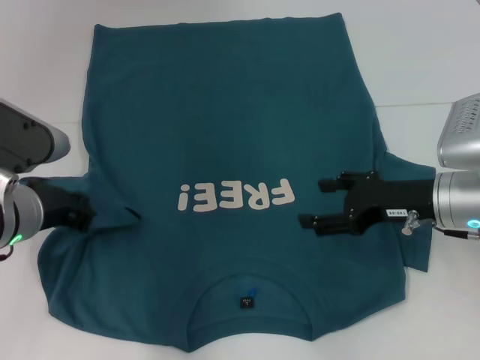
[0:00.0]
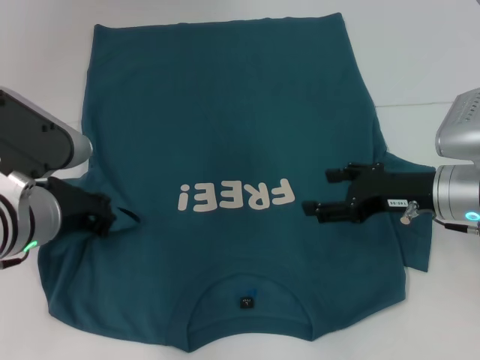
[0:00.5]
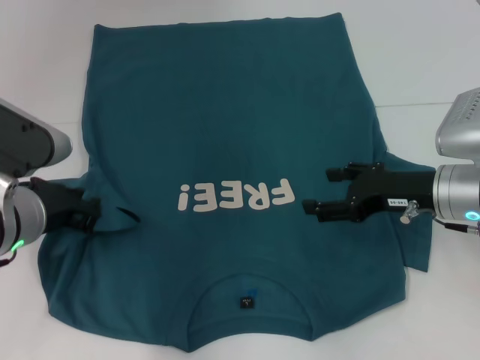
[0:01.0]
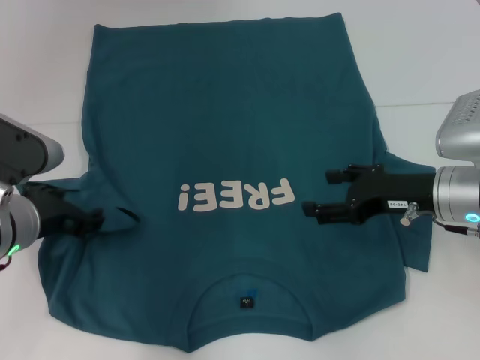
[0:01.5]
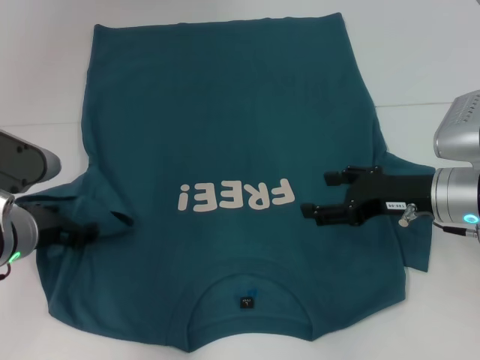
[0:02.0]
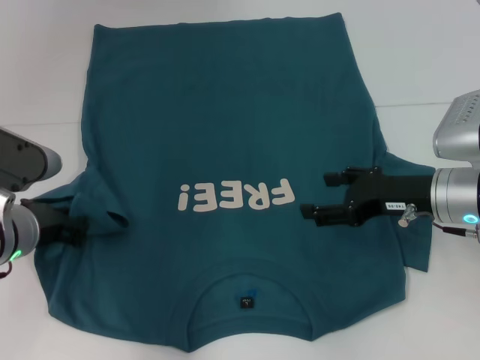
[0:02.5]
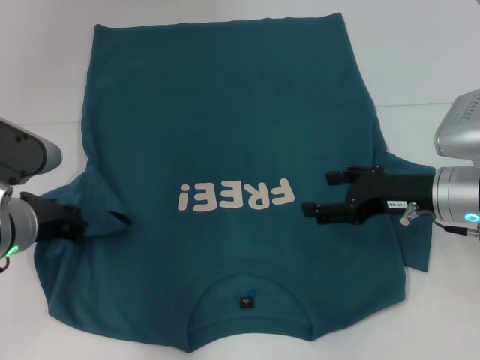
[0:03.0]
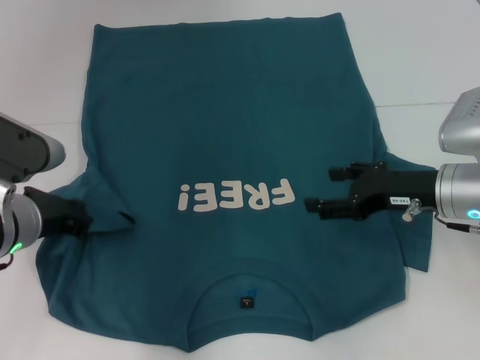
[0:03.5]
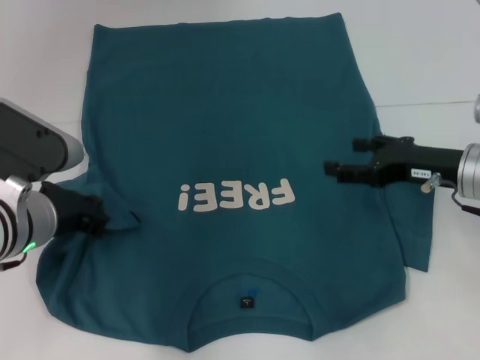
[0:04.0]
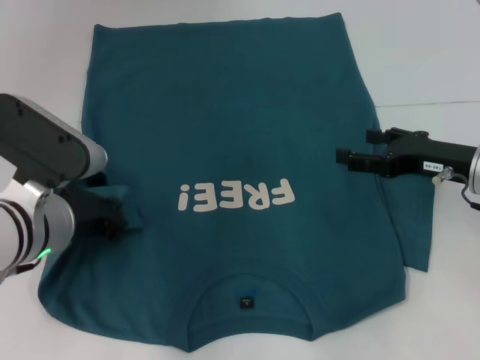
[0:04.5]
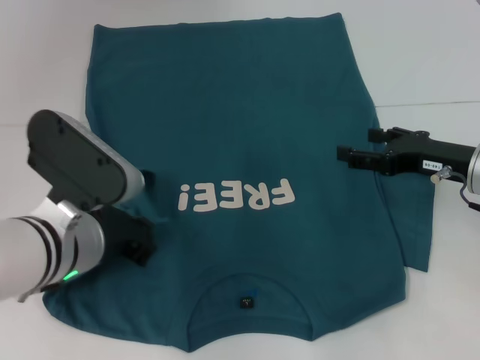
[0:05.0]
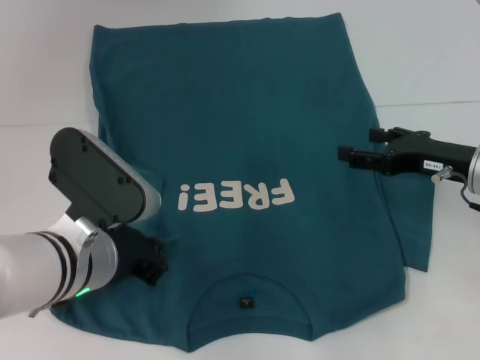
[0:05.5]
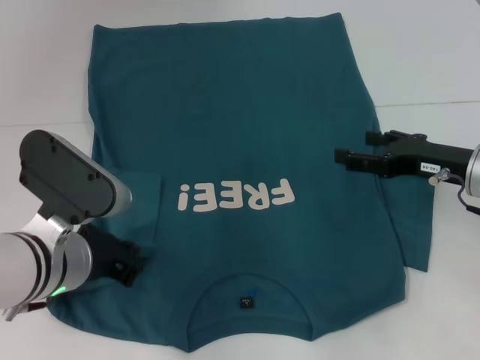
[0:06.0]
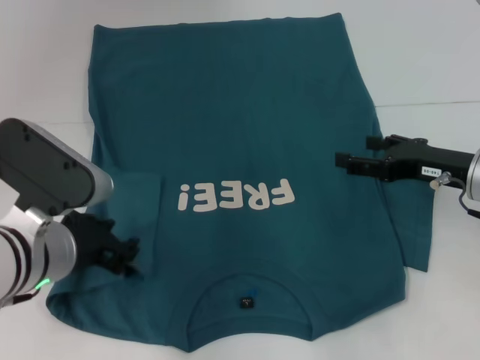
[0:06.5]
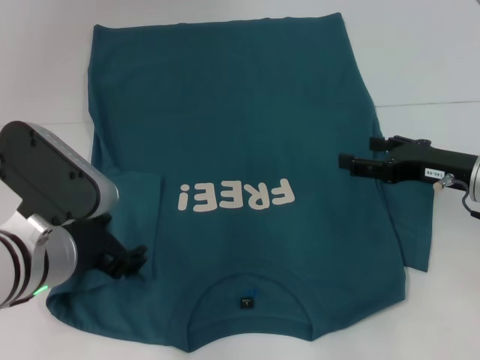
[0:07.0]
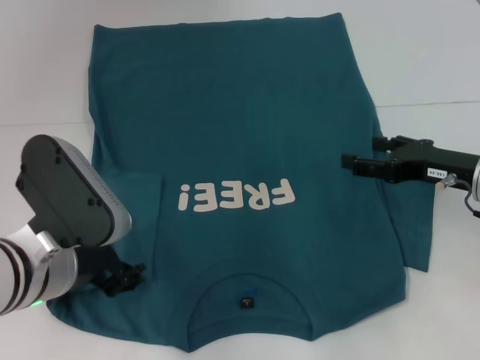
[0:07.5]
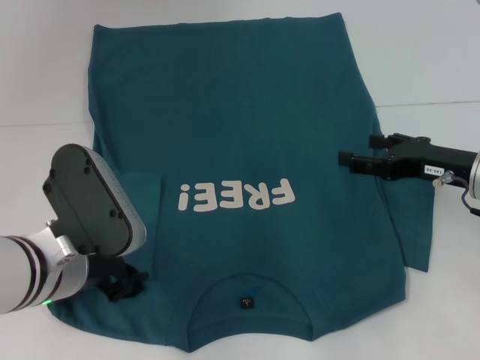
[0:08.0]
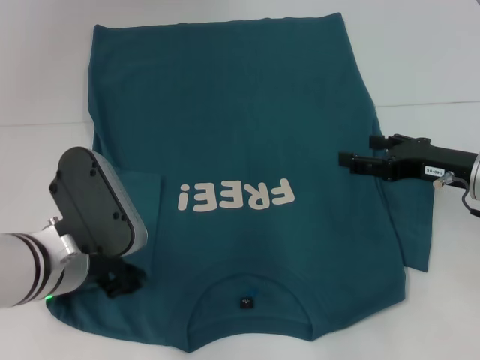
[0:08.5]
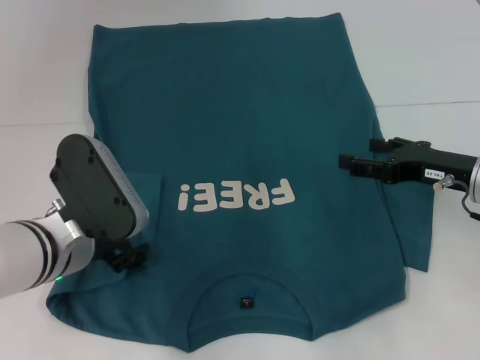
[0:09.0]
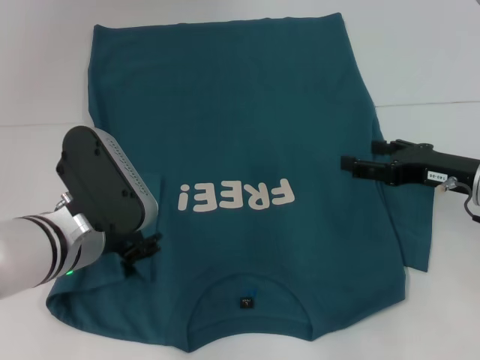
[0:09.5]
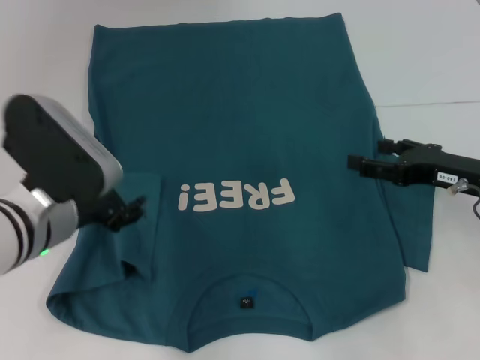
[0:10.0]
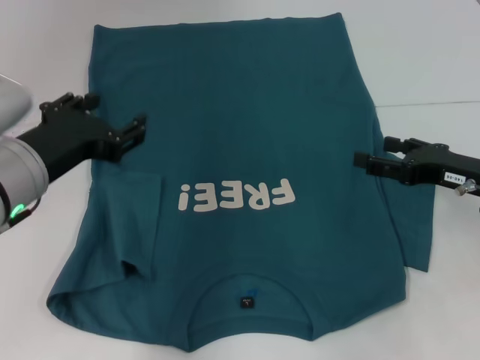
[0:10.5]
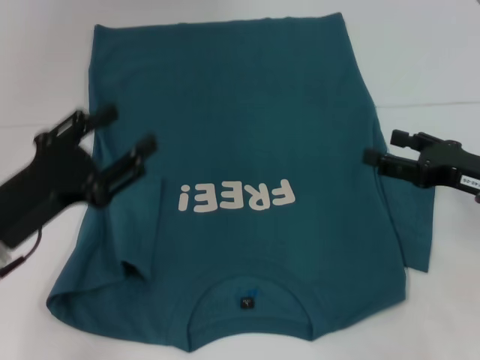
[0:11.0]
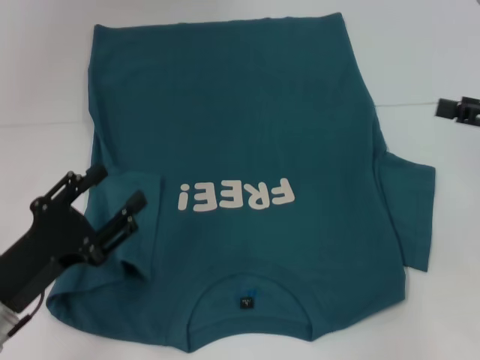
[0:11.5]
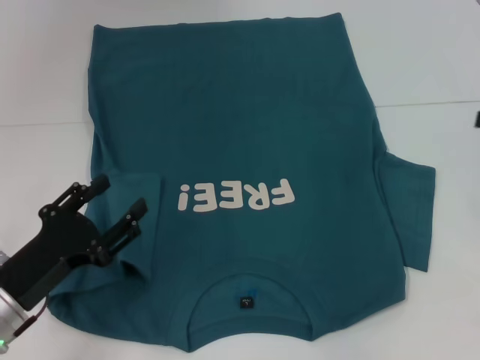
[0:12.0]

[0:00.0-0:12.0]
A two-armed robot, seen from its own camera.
0:00.0 to 0:02.0: The left gripper opens its fingers.
0:02.0 to 0:04.0: The left gripper closes its fingers.
0:06.0 to 0:08.0: The left gripper opens.
0:08.0 to 0:10.0: The grippers make only small movements.
0:10.0 to 0:12.0: The left gripper travels downward, to the left and backward by roughly 15 cm; the right gripper travels upward and to the right by some 15 cm.

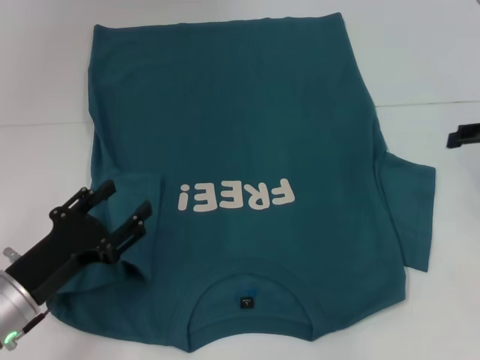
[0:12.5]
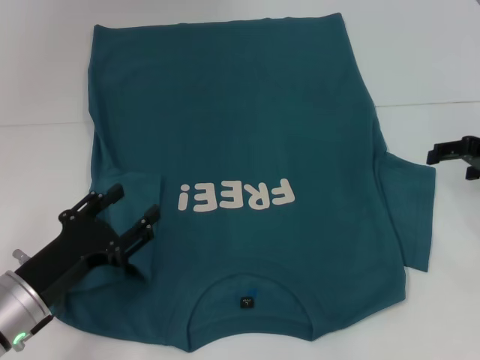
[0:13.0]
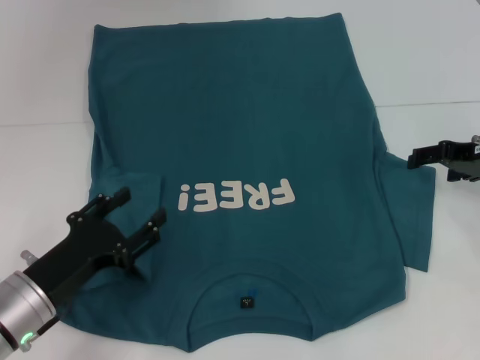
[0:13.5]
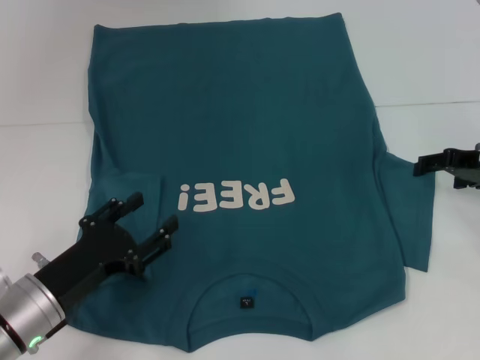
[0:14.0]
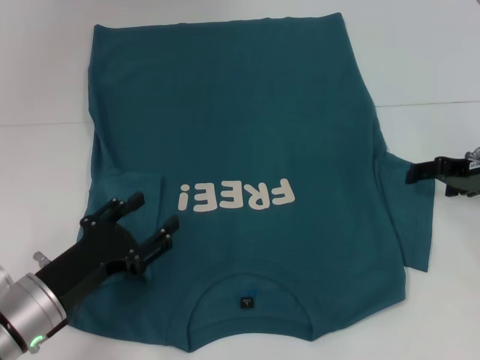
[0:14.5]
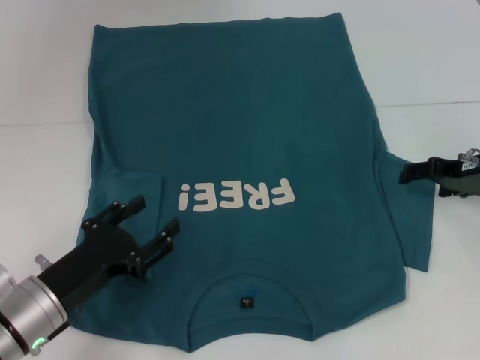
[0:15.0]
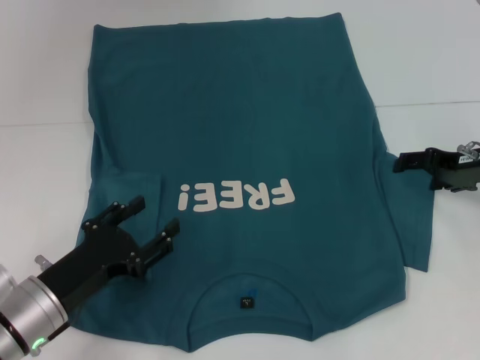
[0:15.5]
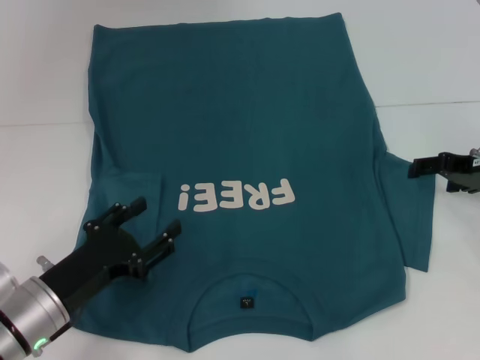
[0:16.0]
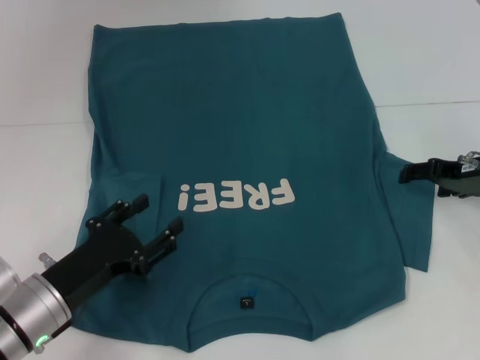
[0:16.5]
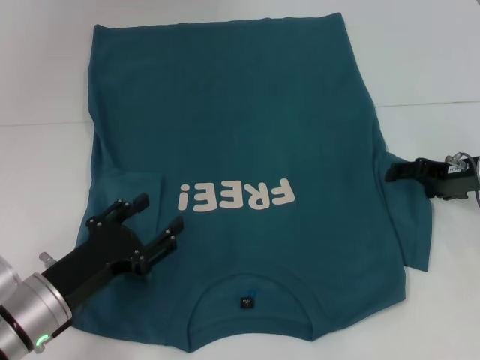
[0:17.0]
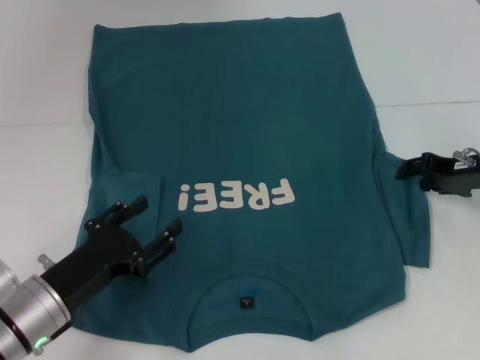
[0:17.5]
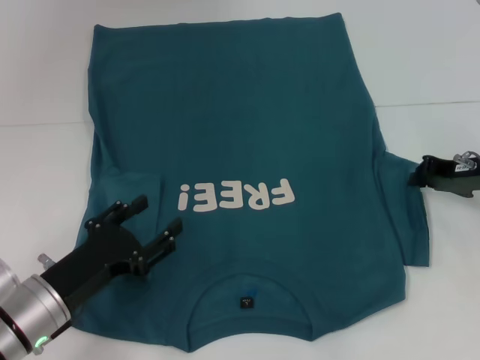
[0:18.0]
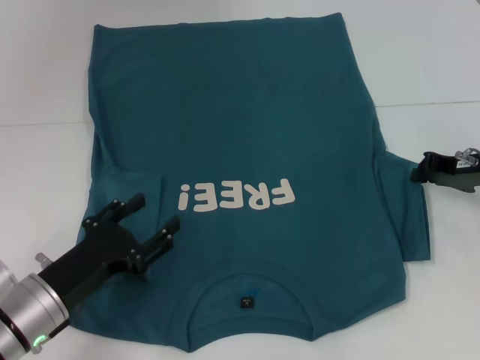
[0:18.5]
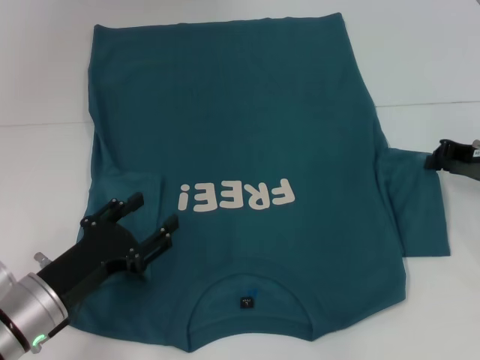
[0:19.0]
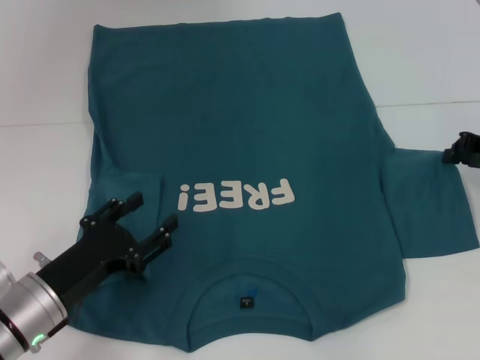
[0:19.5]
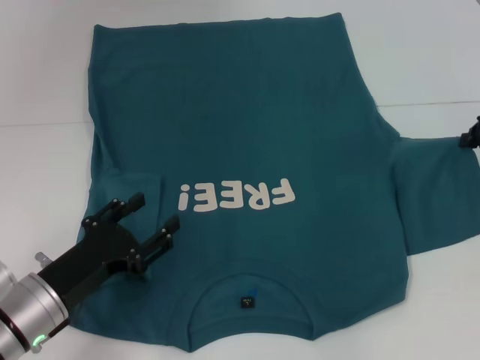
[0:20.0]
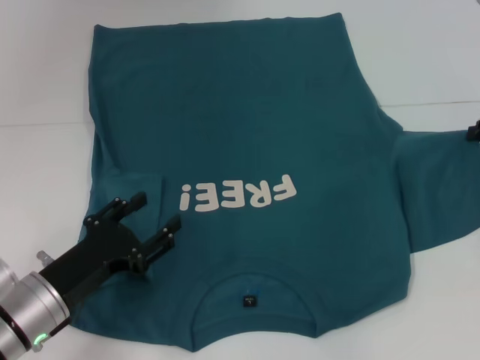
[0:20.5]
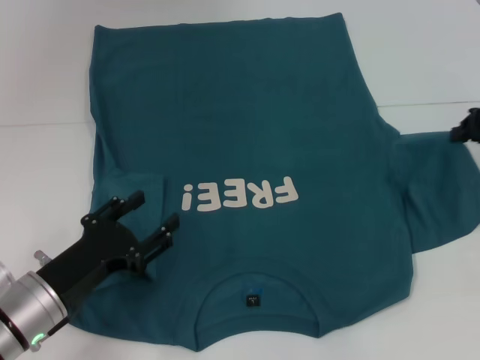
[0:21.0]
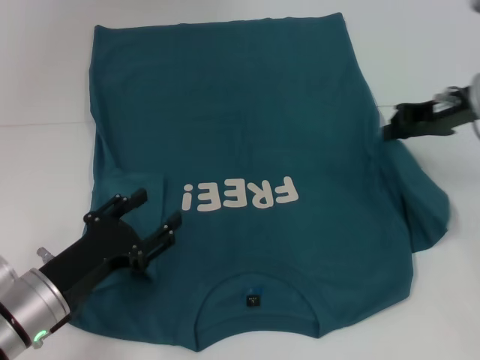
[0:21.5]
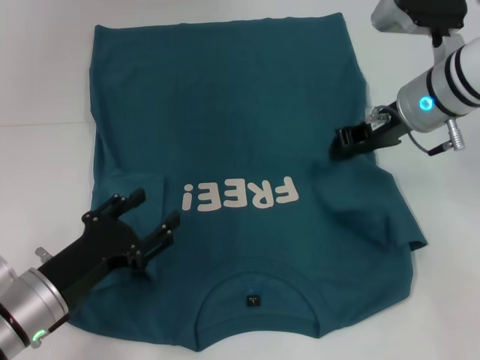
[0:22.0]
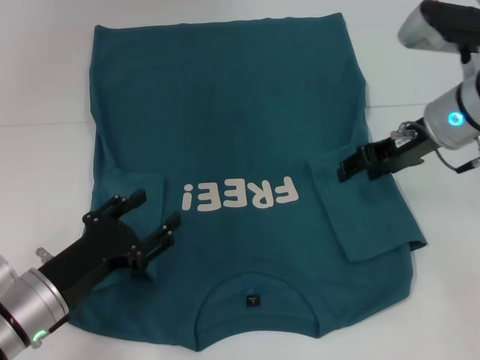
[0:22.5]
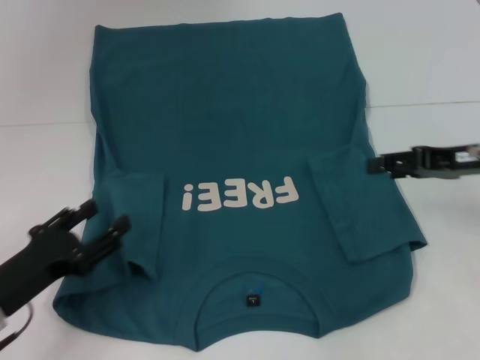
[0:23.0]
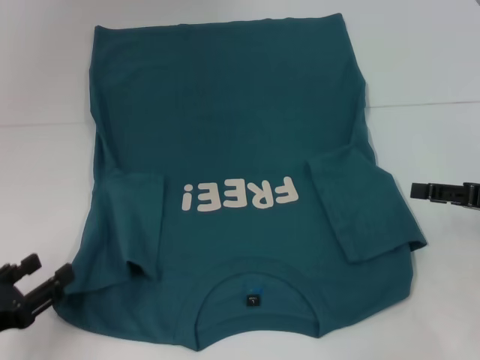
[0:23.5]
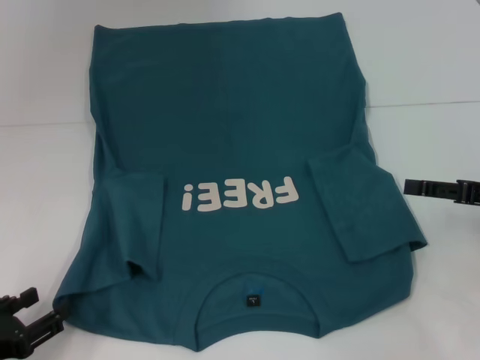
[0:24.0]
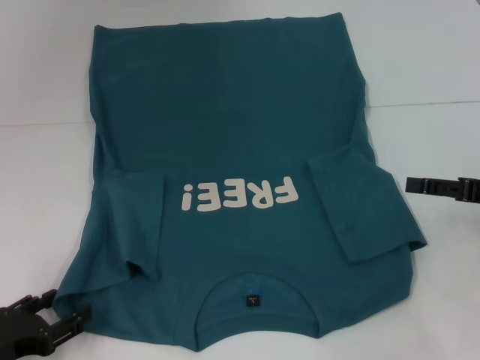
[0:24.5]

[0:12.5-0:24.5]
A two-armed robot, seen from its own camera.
Step, 0:12.5 to 0:22.5: Fold the bottom right sleeve to the right.
0:12.5 to 0:14.5: The right gripper moves downward, approximately 5 cm.
0:14.5 to 0:16.5: The grippers move only a little.
0:16.5 to 0:18.5: The right gripper closes up.
0:18.5 to 0:20.5: The right gripper goes about 10 cm to the right and upward.
0:20.5 to 0:22.5: The right gripper is displaced to the left by roughly 15 cm, and opens up.
0:22.5 to 0:24.5: The right gripper shifts approximately 15 cm to the right, backward and downward, and opens its fingers. Meanwhile the left gripper travels to the left and backward by roughly 10 cm.

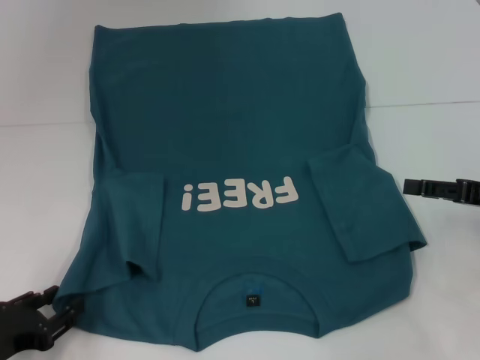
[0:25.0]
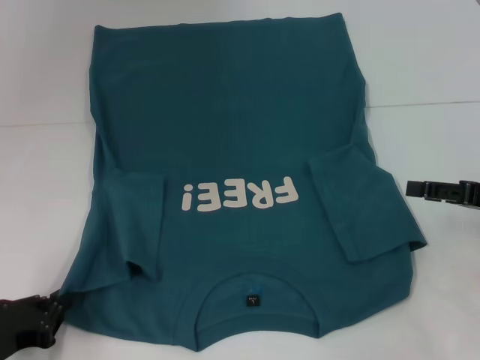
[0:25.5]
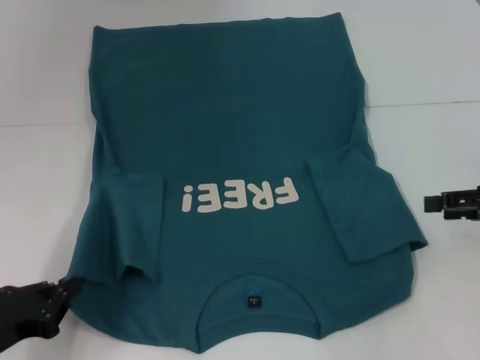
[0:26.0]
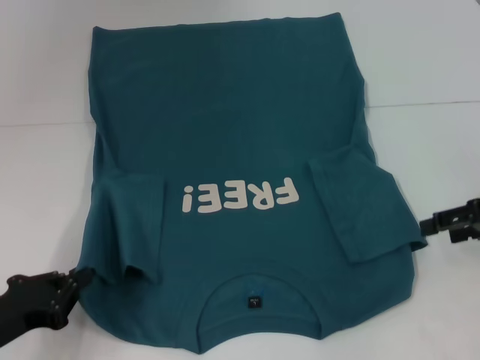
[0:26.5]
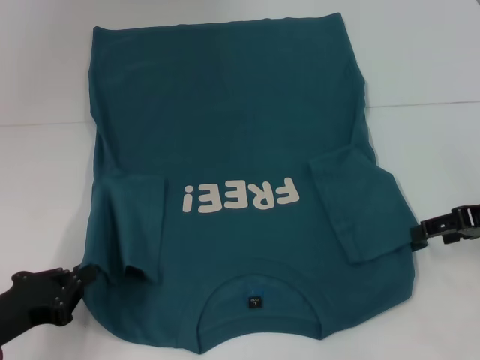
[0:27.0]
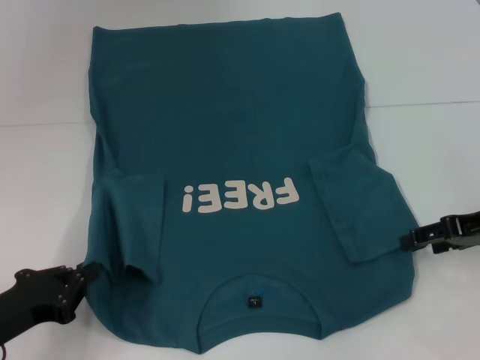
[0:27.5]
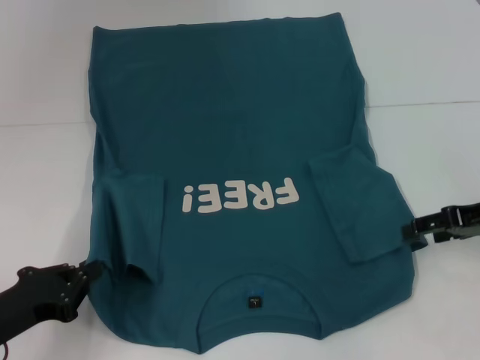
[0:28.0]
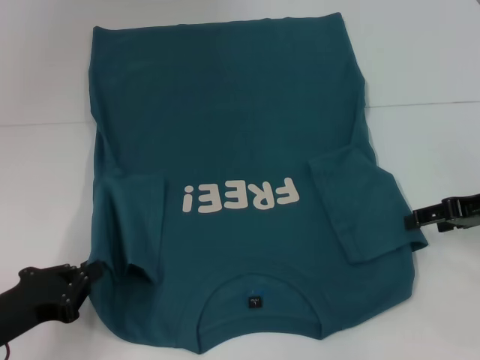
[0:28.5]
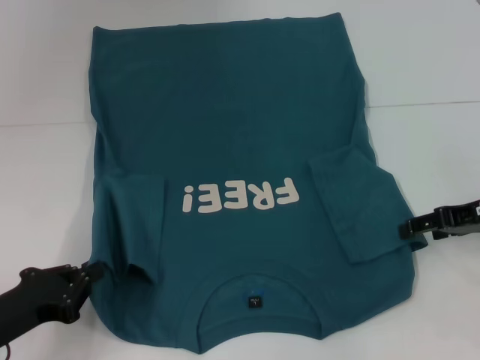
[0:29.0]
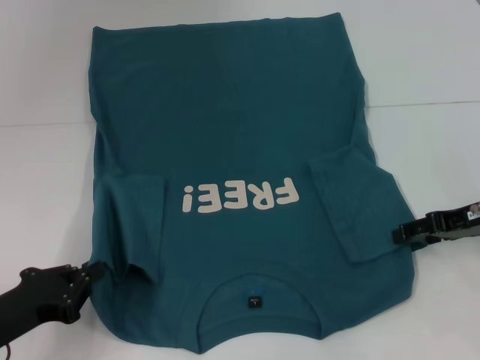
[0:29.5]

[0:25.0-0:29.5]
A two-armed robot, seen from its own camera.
0:25.0 to 0:27.0: The left gripper closes.
0:27.0 to 0:29.5: The grippers move only a little.
